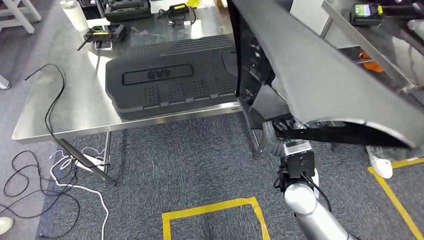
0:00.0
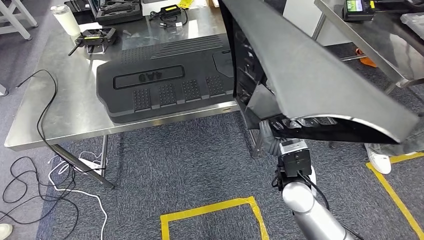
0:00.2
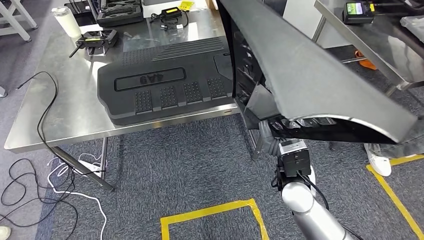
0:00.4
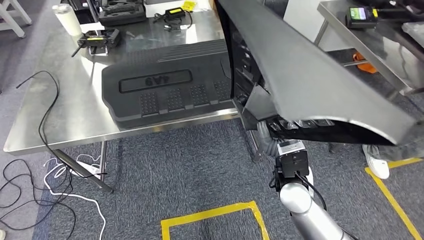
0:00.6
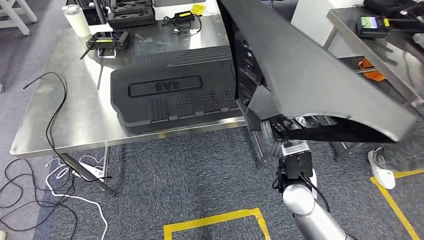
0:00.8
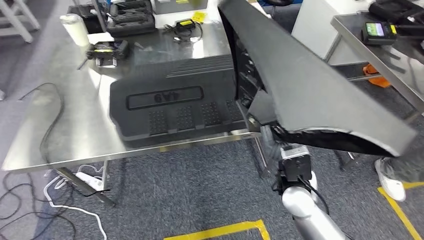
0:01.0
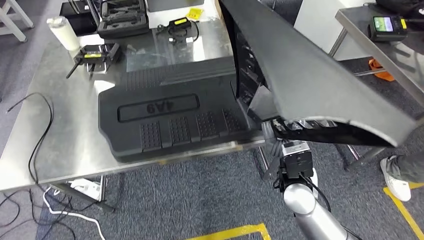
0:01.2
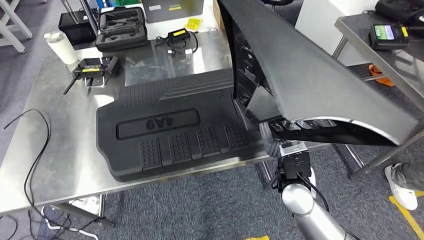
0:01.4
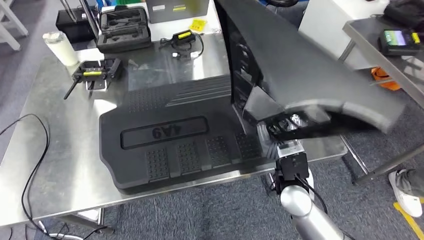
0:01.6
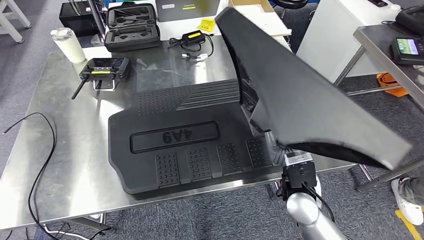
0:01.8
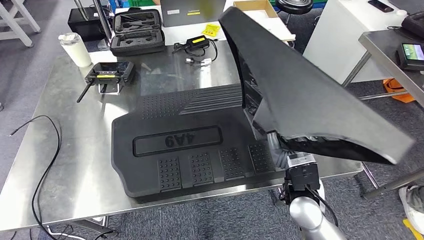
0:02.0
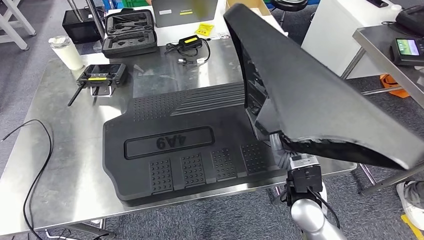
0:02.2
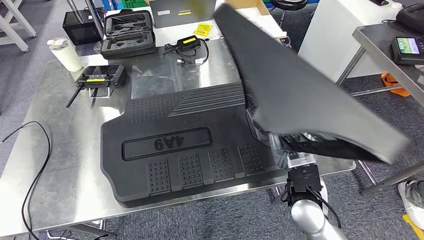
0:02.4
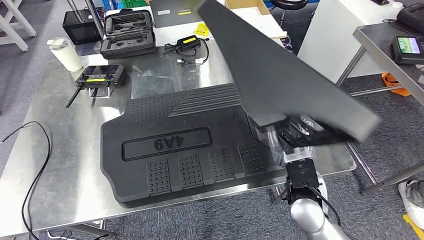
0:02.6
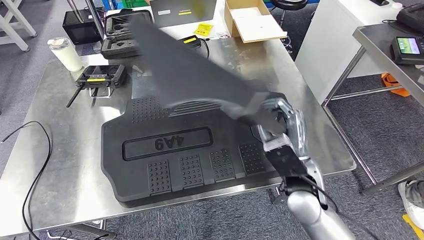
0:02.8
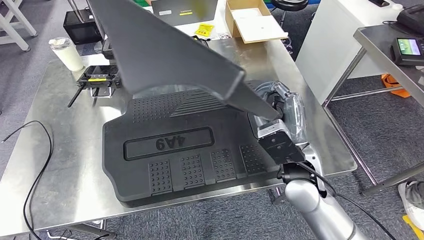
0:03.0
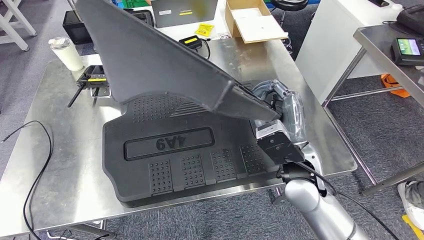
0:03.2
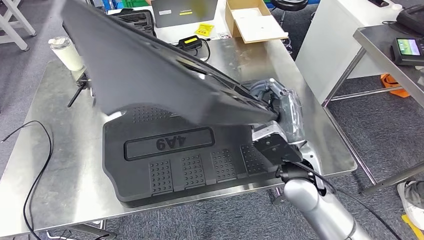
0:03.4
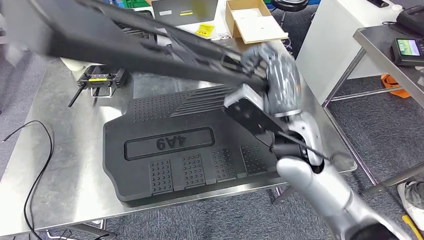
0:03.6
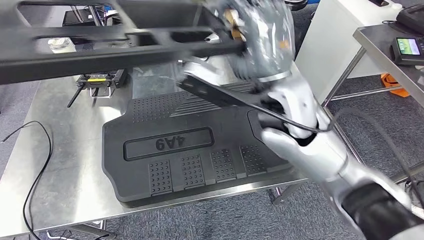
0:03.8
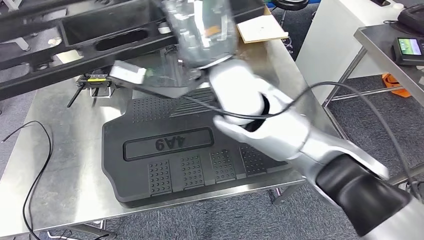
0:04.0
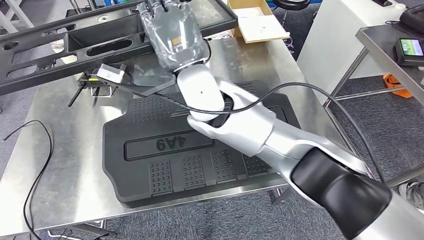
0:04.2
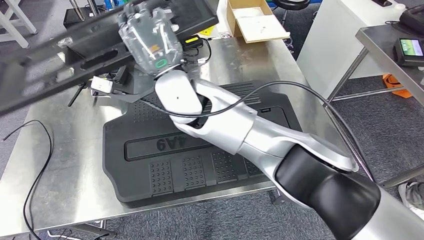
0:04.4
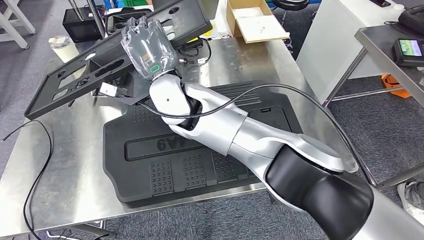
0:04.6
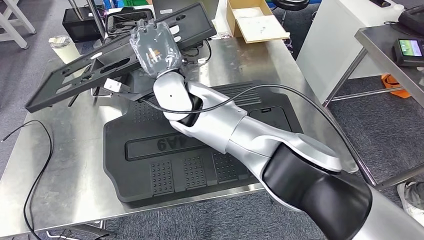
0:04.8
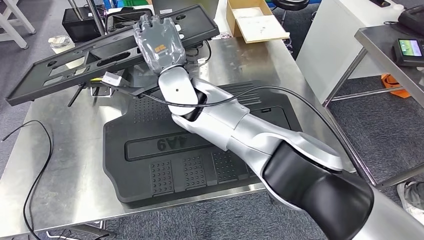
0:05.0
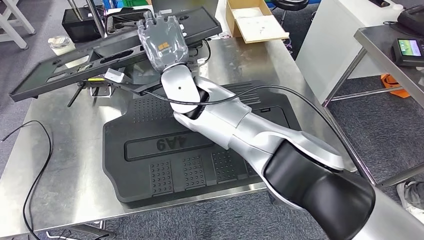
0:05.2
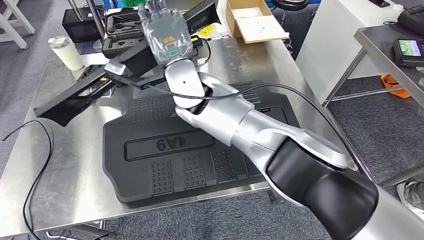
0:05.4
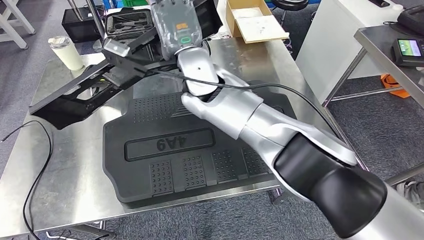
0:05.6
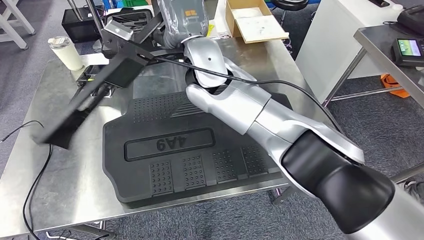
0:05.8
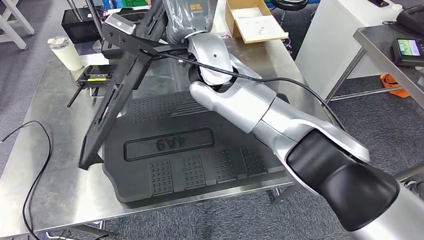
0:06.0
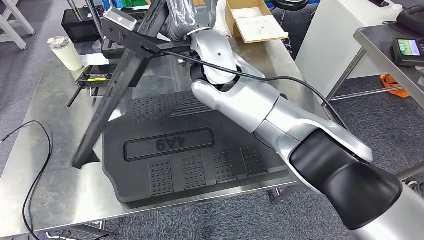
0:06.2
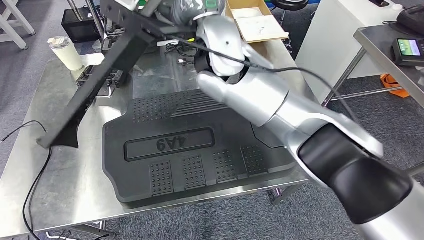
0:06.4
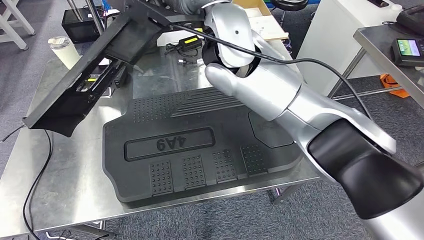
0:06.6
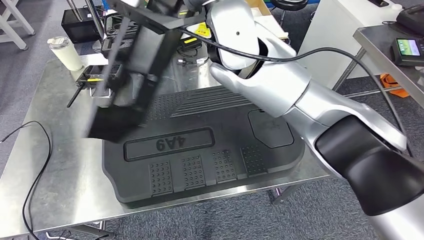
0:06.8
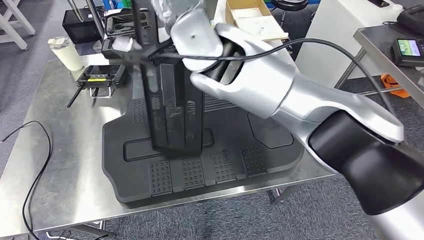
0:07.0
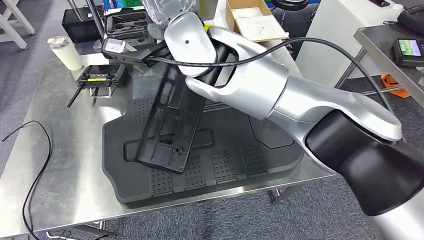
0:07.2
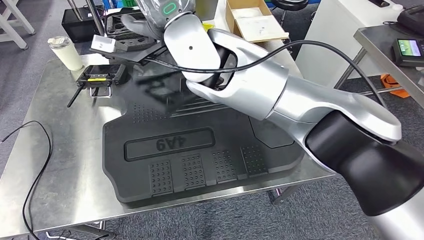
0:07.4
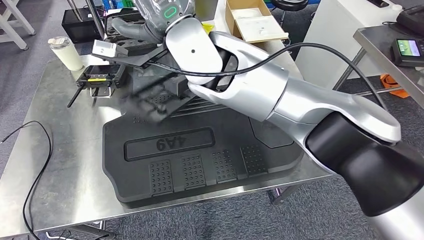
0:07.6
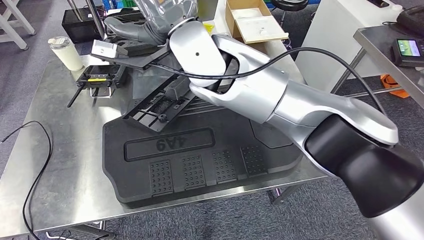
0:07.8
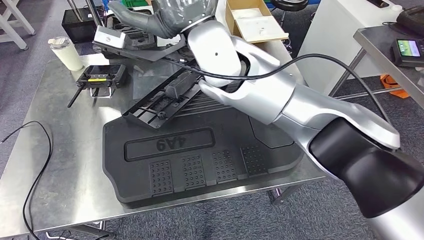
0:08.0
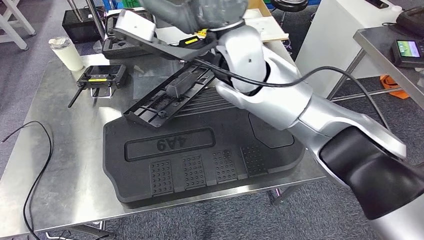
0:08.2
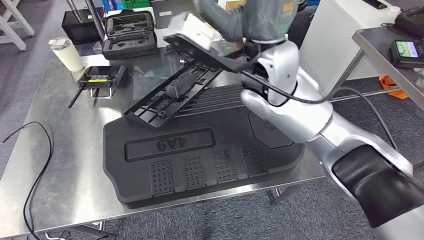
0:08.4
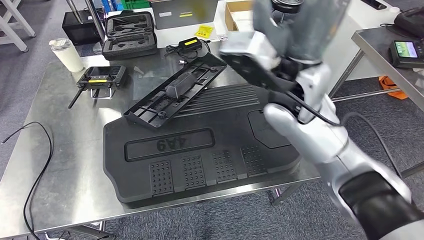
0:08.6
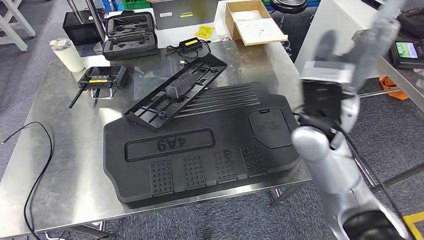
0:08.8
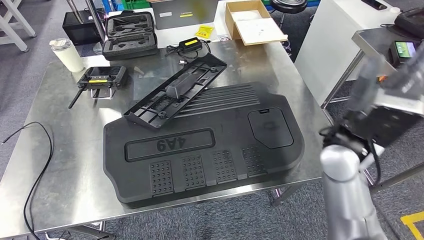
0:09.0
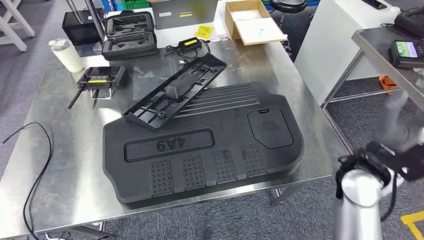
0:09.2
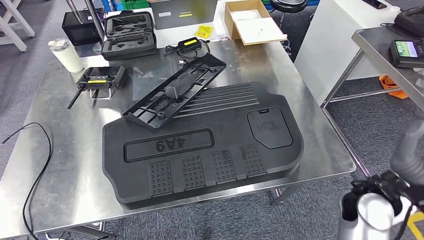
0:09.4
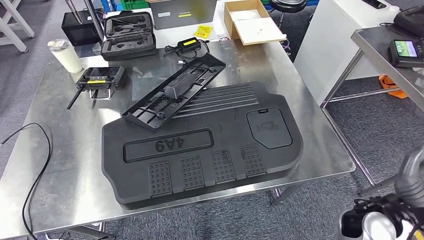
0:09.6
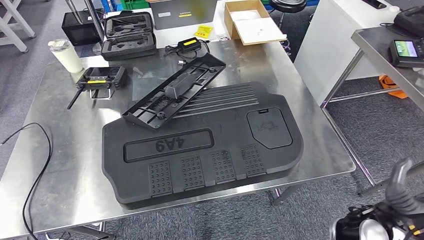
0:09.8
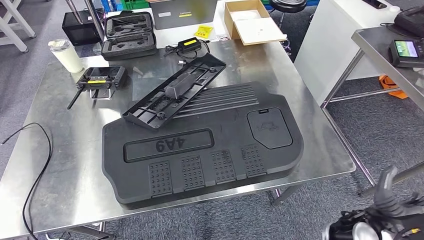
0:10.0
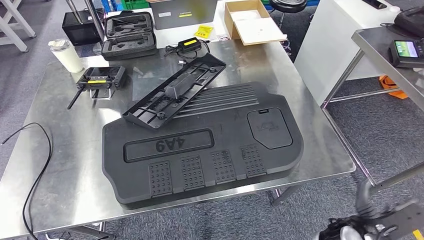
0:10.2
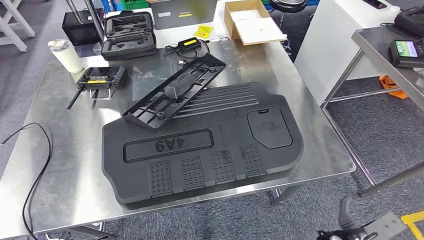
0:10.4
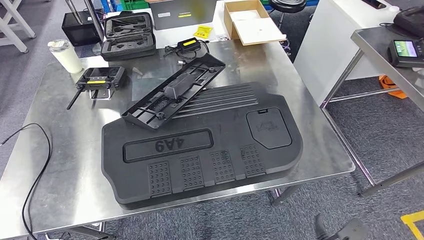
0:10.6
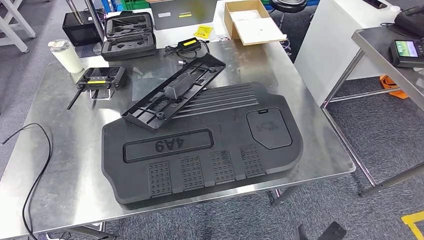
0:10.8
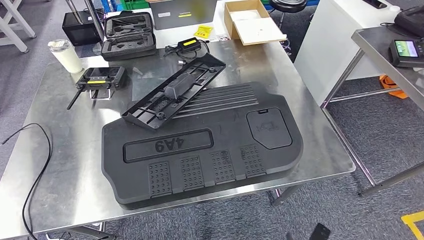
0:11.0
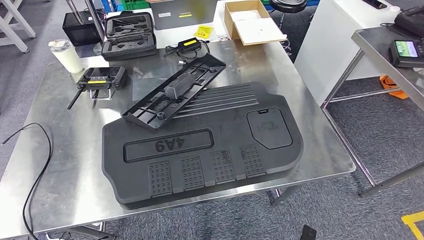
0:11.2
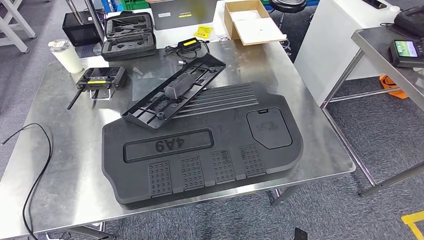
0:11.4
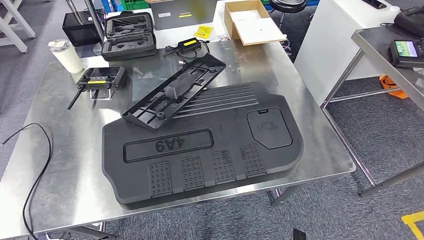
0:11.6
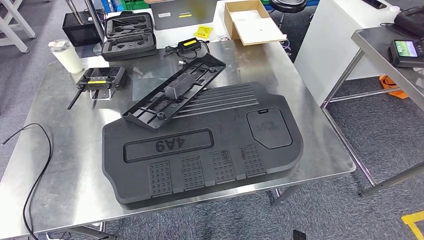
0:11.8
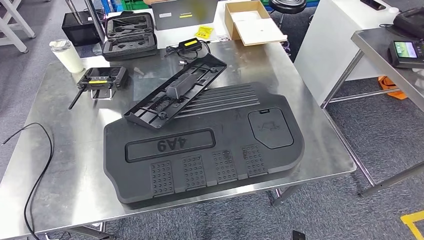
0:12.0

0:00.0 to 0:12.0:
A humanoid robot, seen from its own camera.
0:09.0 to 0:10.4: The right hand is displaced downward and backward by some 35 cm.
0:10.4 to 0:12.0: The right hand is displaced downward, to the left and backward by some 15 cm.

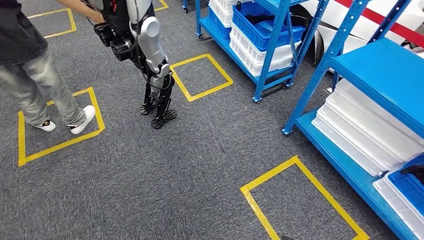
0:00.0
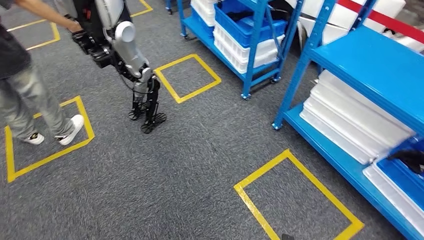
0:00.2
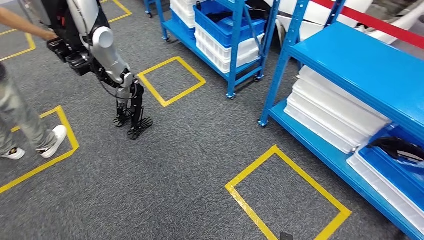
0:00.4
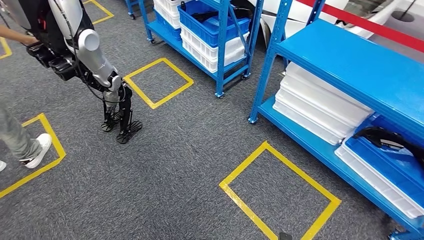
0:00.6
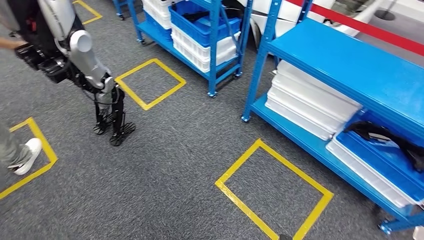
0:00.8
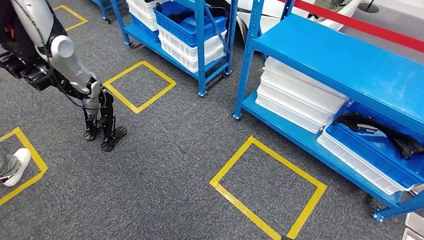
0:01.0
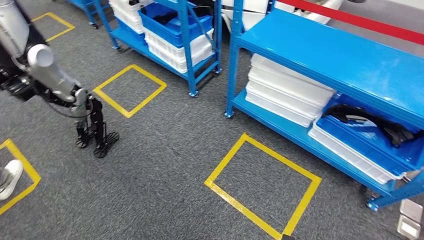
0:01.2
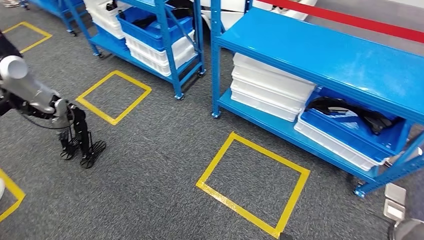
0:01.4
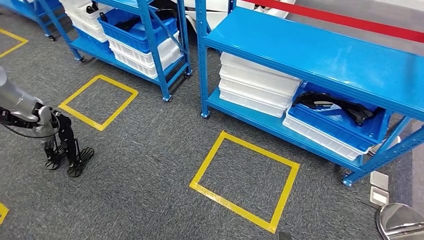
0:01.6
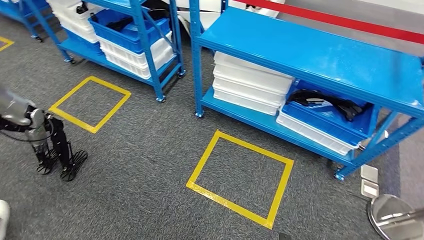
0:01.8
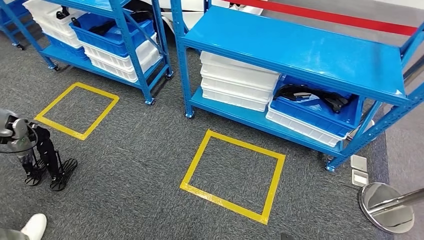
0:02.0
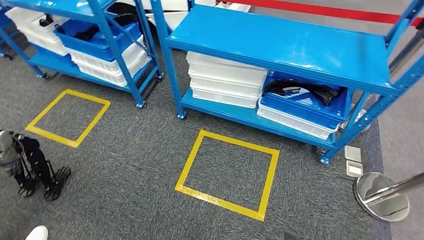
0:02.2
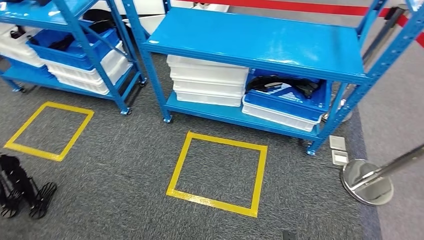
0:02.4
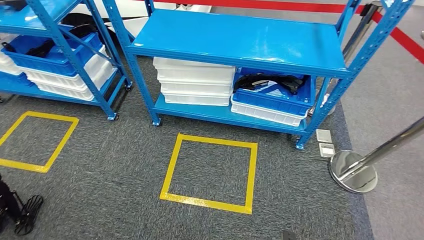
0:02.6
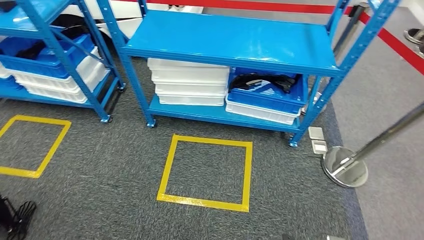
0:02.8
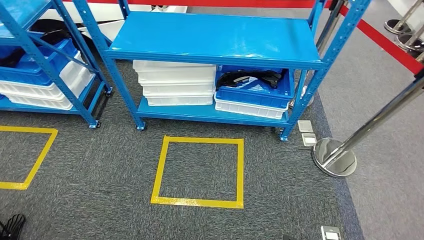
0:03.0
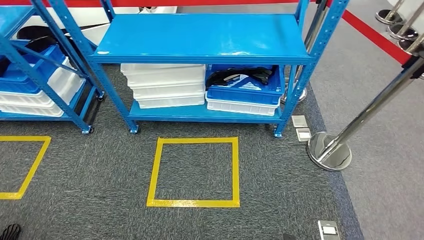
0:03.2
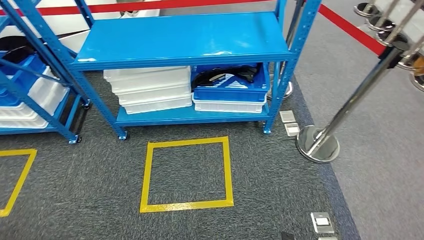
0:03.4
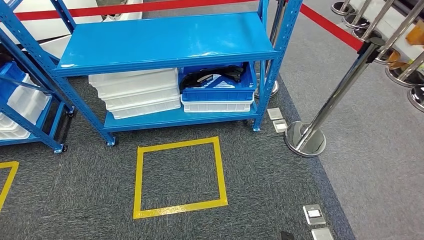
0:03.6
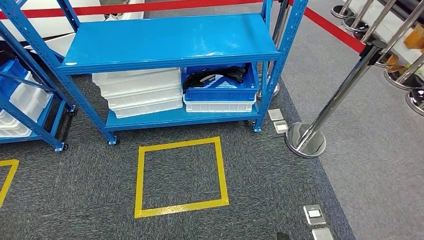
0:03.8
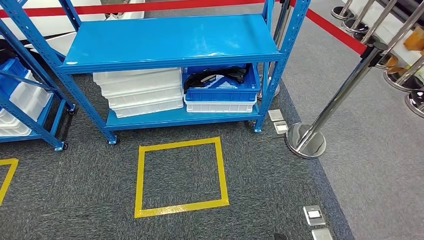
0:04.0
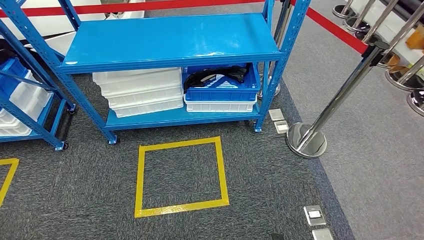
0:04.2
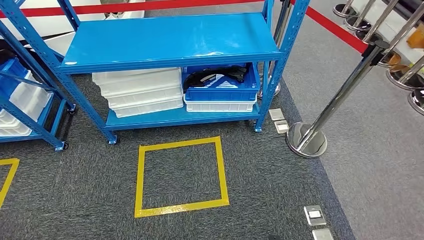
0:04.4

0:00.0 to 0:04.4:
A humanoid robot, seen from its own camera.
Step, 0:00.0 to 0:04.2: Move to the initial position of the shelf.
